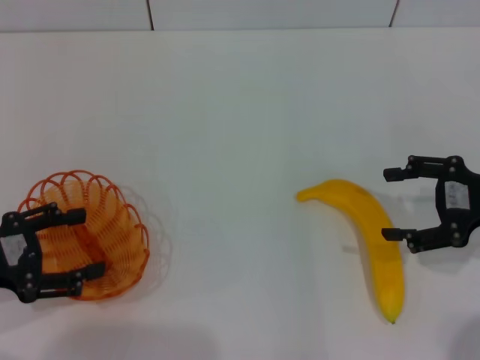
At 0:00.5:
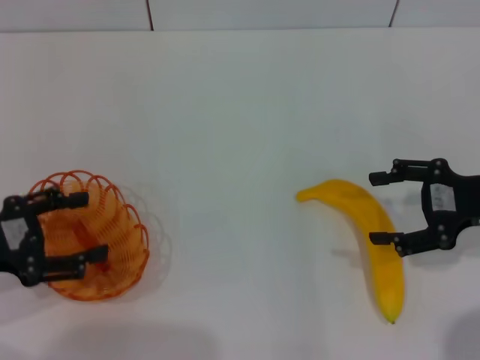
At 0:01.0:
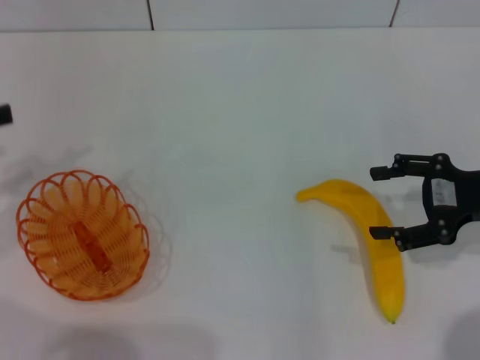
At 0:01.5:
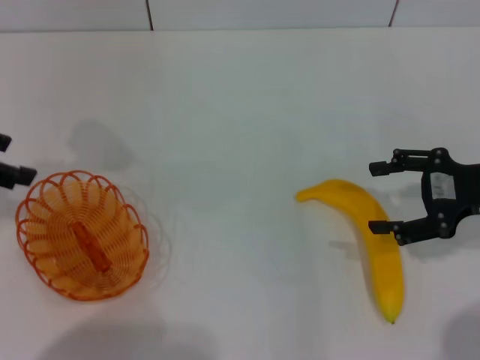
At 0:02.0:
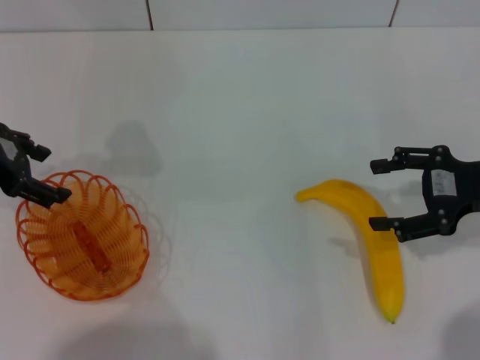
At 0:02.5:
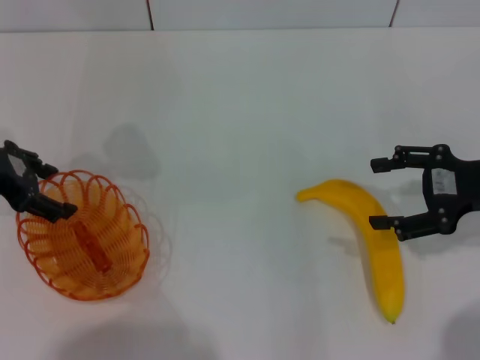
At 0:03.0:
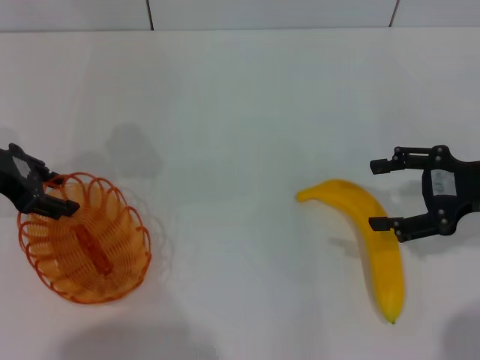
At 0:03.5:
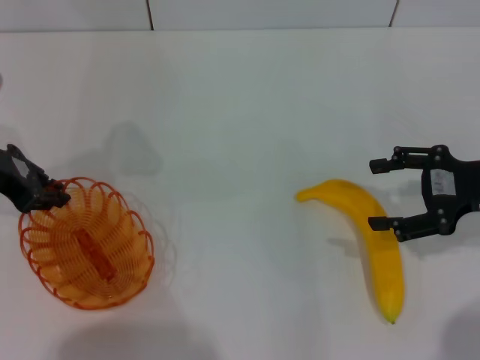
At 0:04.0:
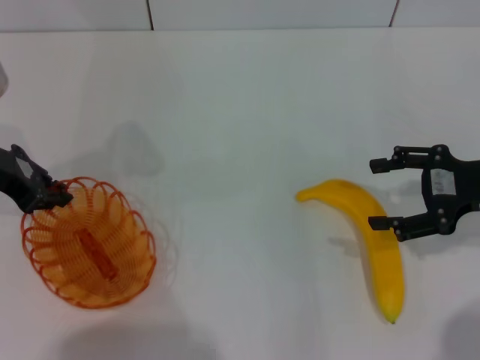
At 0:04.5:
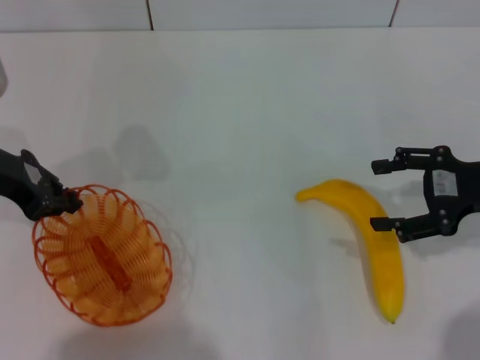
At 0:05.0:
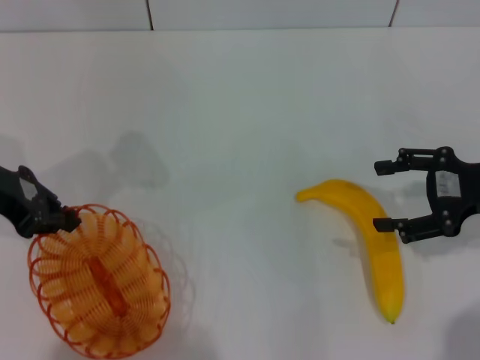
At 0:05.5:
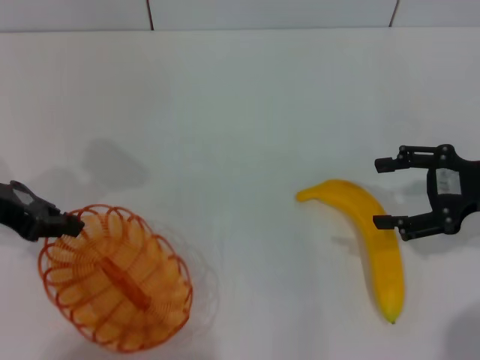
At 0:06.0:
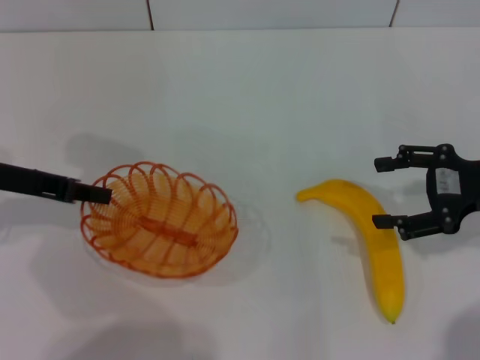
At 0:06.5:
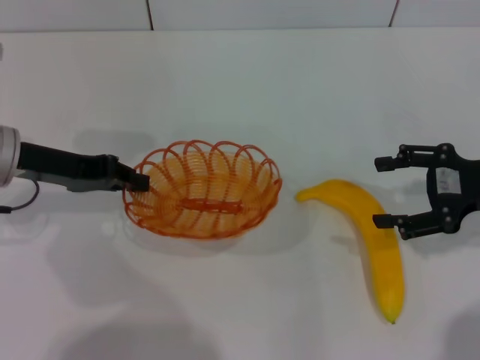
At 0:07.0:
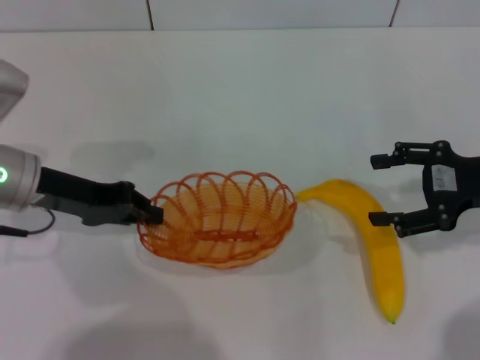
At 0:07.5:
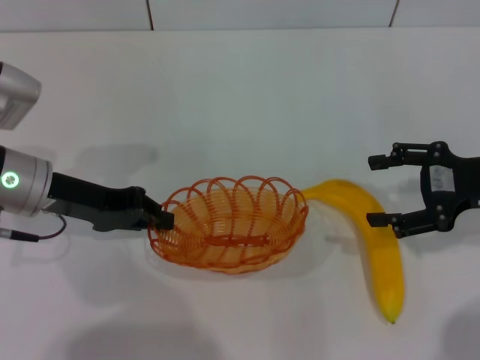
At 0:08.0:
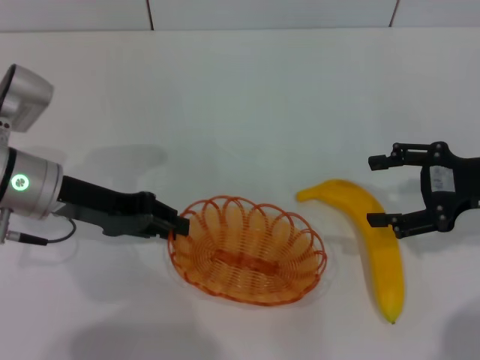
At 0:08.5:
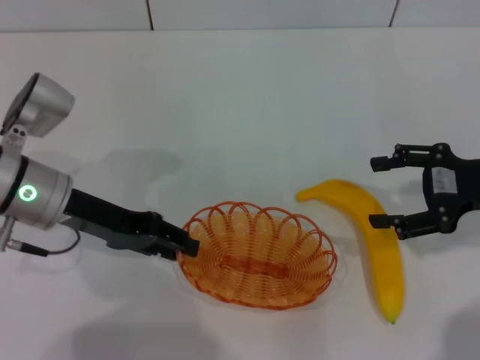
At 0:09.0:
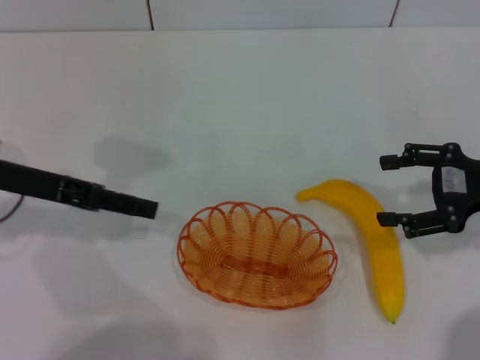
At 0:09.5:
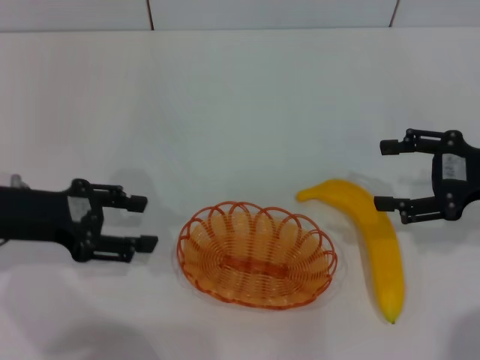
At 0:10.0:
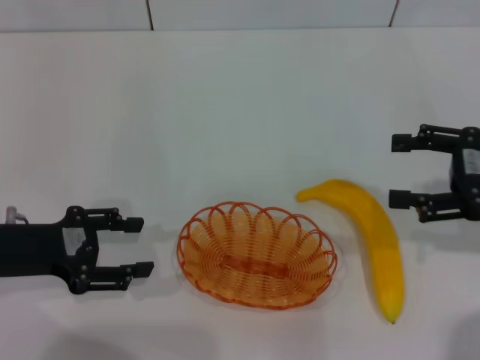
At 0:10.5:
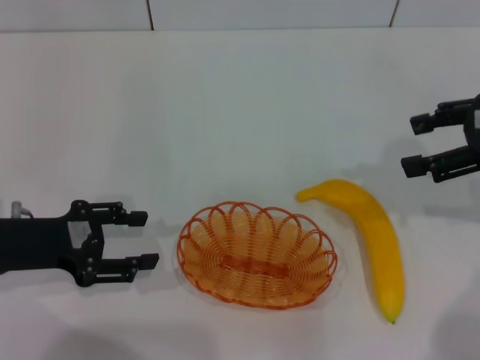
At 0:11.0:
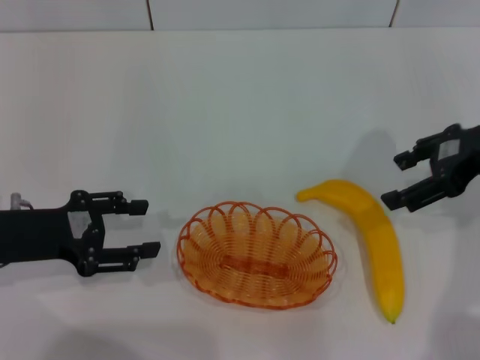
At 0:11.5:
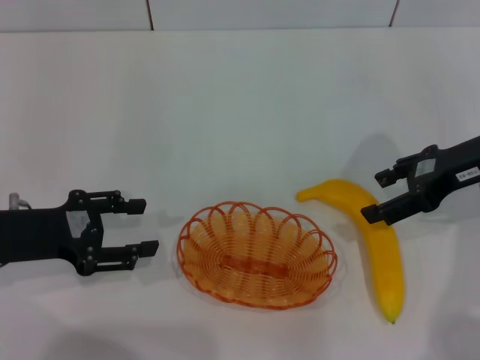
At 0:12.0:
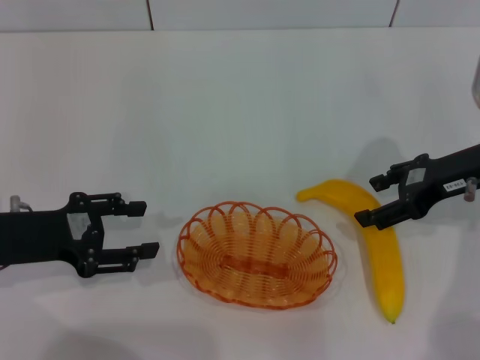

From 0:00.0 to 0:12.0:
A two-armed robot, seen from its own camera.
Step, from 0:00.0 to 0:05.0: Pick up the basket with the left gripper.
Step, from 0:05.5 to 0:08.5: Place the basket in the center of view with the left gripper.
From 0:00.0 to 0:02.0: The left gripper travels forward and upward by about 15 cm.
From 0:02.0 to 0:04.0: The left gripper closes up.
From 0:06.0 to 0:08.0: The left gripper travels to the right by about 5 cm.
From 0:08.0 to 0:10.0: The left gripper moves backward and to the left, approximately 10 cm, and opens up.
From 0:10.0 to 0:12.0: The right gripper moves forward and to the left, approximately 10 cm, and travels upward and back again, some 10 cm each way.

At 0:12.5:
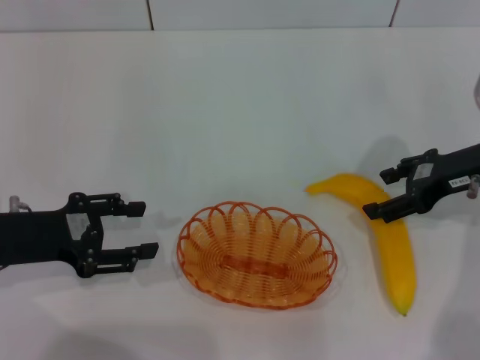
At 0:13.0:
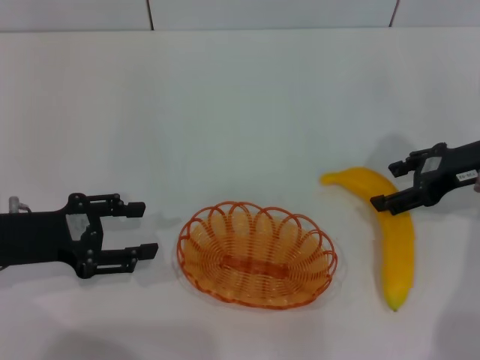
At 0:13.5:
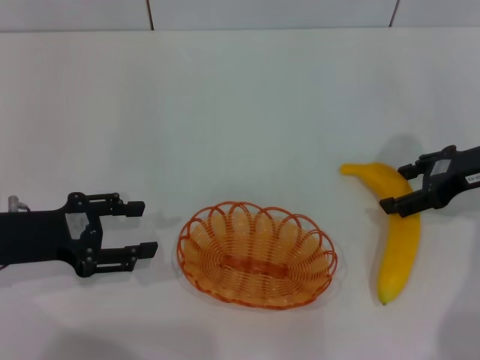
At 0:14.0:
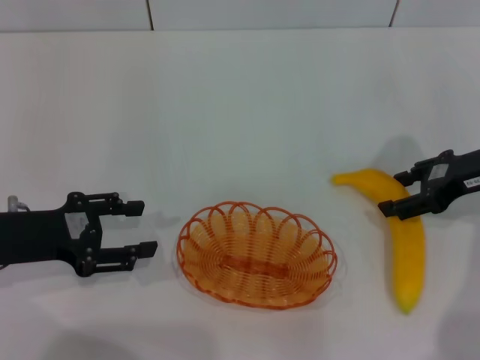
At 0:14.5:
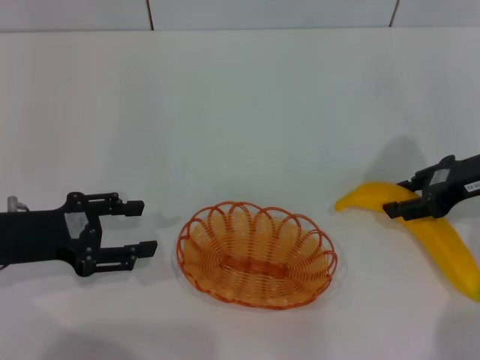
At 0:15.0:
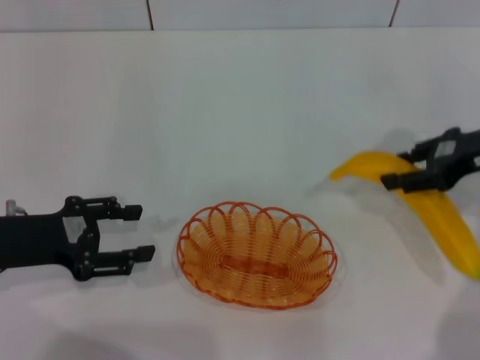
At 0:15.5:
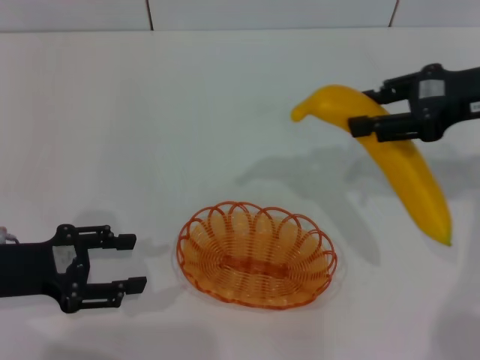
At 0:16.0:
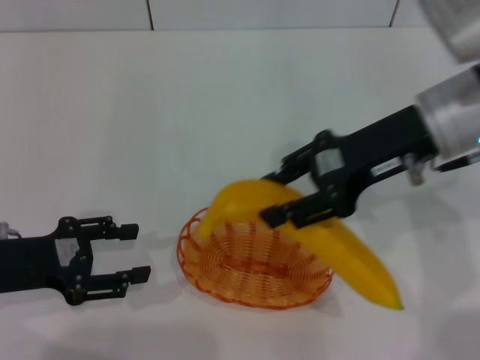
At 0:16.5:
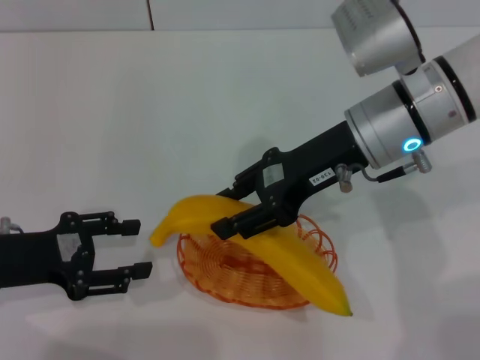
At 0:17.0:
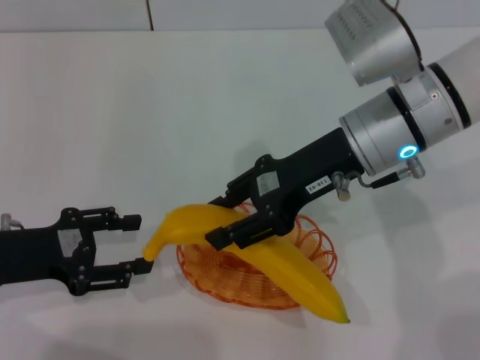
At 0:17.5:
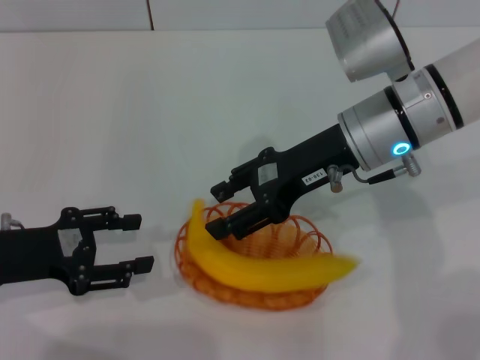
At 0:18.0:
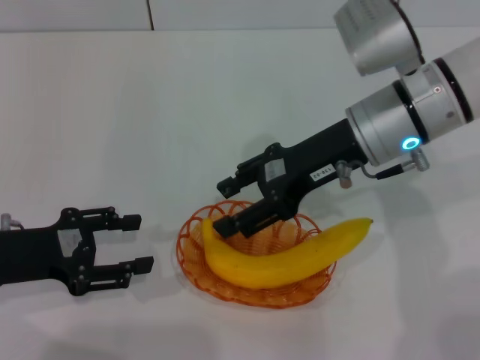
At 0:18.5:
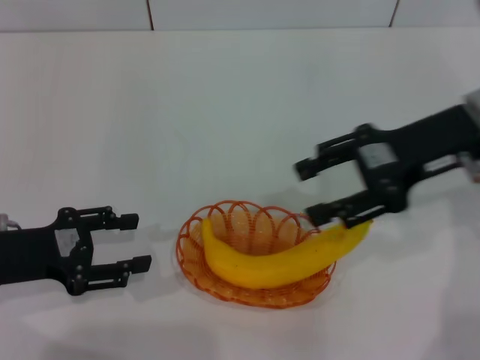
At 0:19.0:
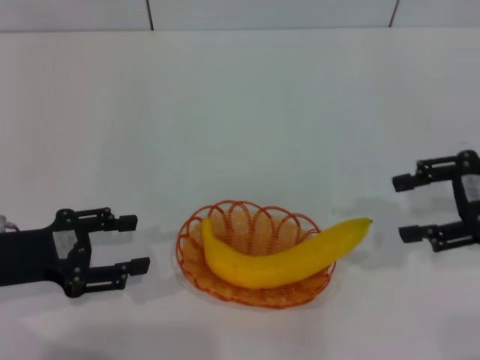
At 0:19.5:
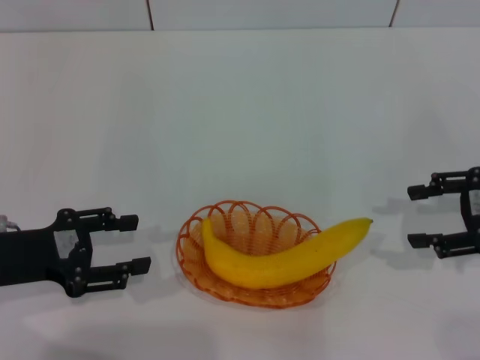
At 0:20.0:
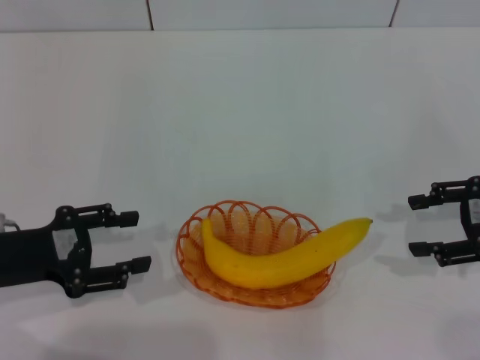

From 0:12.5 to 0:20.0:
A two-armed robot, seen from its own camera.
Step, from 0:12.5 to 0:15.0: Pick up the banana with the right gripper.
Step, from 0:15.5 to 0:17.5: Place the banana into the basket with the right gripper.
From 0:12.5 to 0:14.5: The right gripper closes.
From 0:14.5 to 0:16.5: The right gripper goes approximately 15 cm to the left.
From 0:16.5 to 0:18.0: The right gripper opens its fingers.
From 0:18.0 to 0:20.0: The right gripper shifts approximately 20 cm to the right.
